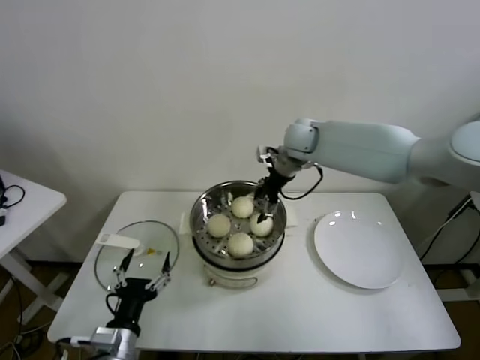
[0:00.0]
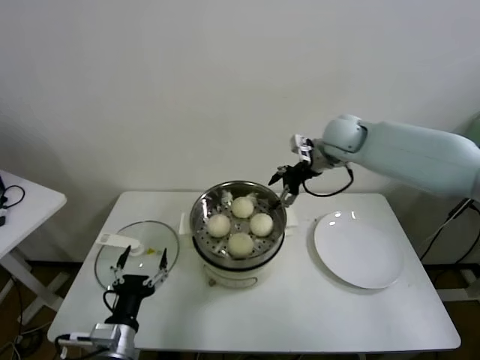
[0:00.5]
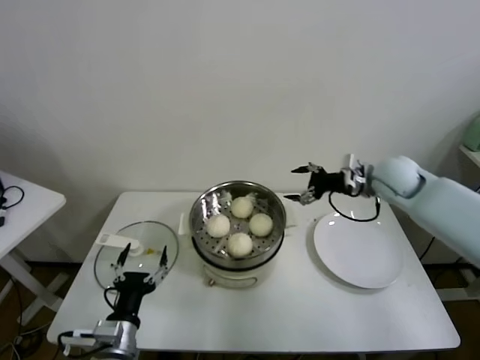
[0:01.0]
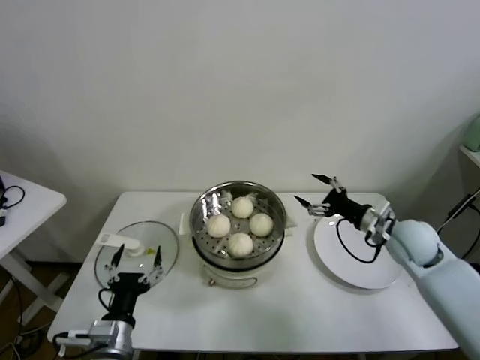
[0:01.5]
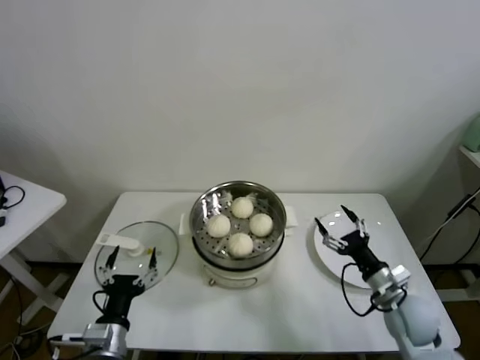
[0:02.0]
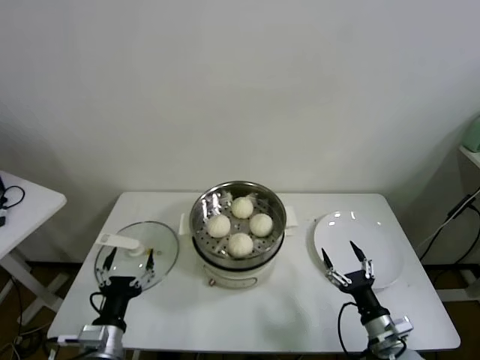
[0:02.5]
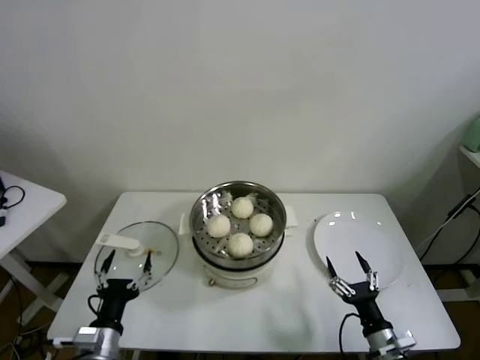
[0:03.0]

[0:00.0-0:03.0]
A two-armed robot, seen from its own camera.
Task of the whole recording: take steamed baozi put them in steamer.
0:00.0 to 0:01.5: The right gripper moves to the right, backward and downward, about 30 cm.
0:01.5 to 0:03.0: The right gripper moves backward and downward, approximately 30 cm.
